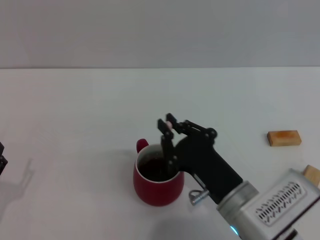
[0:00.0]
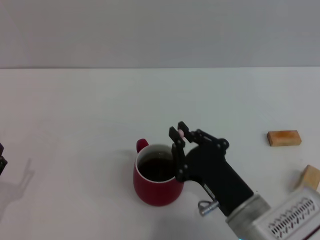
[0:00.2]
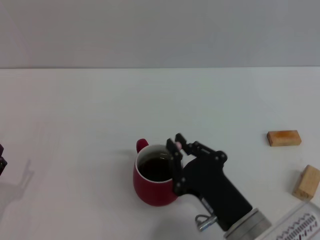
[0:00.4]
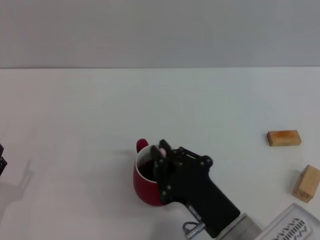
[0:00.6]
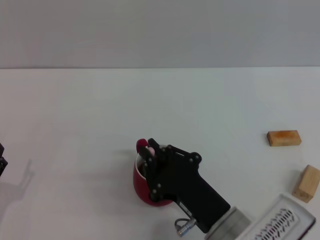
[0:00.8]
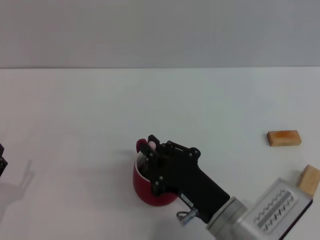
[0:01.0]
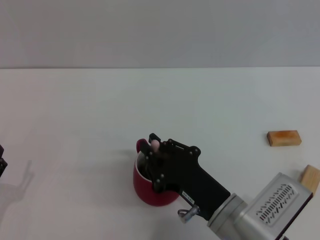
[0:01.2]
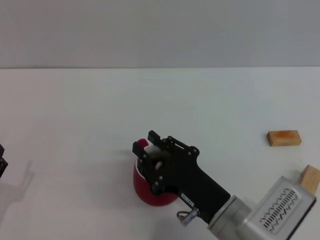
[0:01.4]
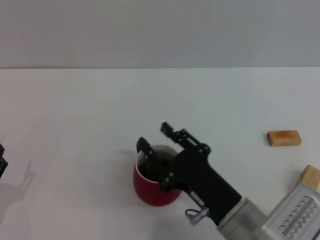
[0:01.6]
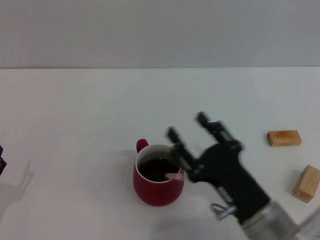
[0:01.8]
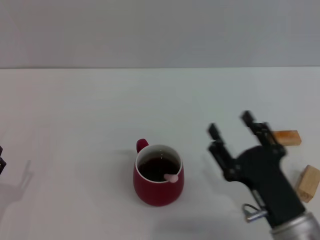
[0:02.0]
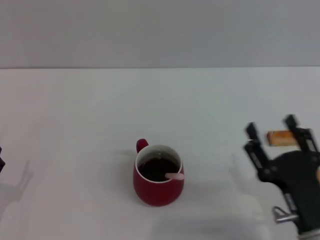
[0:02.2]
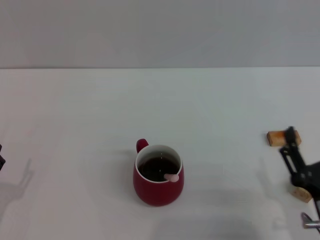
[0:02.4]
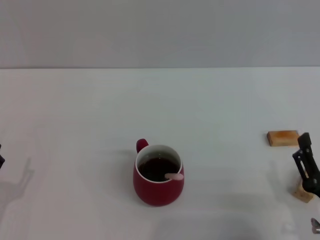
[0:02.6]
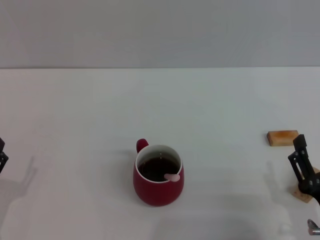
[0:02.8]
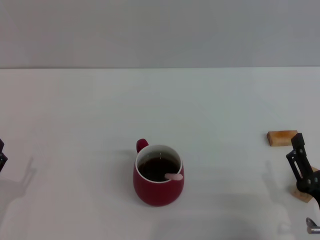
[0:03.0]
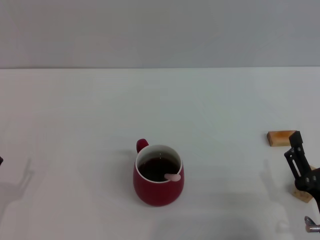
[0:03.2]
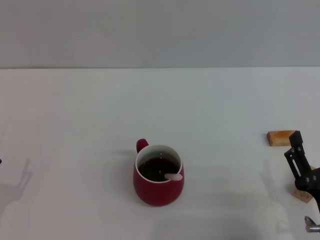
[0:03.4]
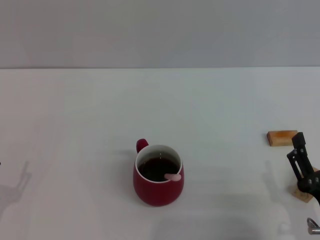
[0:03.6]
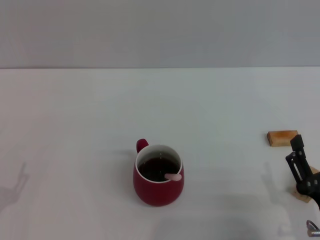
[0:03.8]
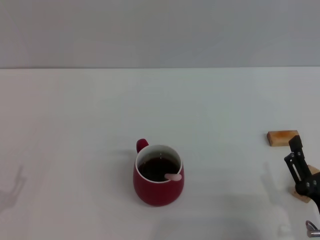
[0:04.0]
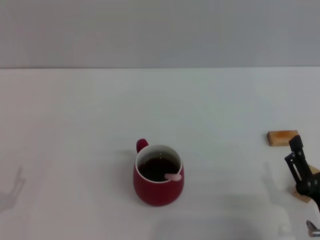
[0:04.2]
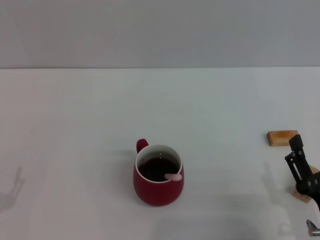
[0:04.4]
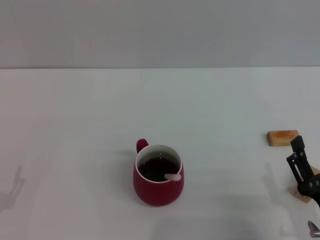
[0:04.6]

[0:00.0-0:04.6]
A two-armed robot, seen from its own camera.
Task of the whole recording: Move the red cup to the center, lift the pink spoon, stir it three times in the cup, and put the spoon into the cup.
0:00.0 to 0:01.6: The grippers move only a little.
0:01.6 to 0:03.0: The right gripper is displaced to the right and backward by roughly 10 cm, and opens.
0:03.0 to 0:04.6: The grippers move only a little.

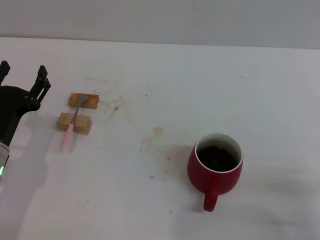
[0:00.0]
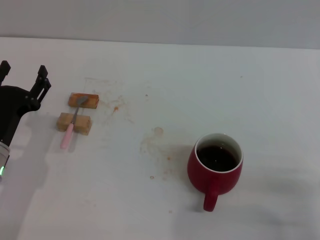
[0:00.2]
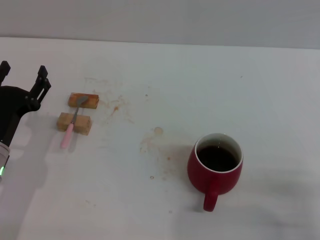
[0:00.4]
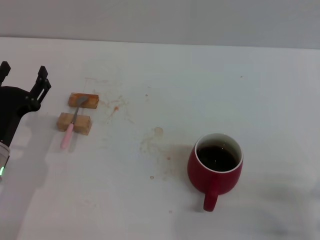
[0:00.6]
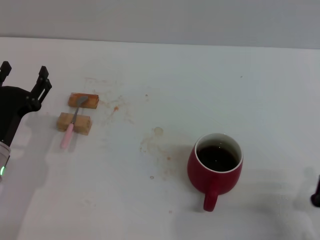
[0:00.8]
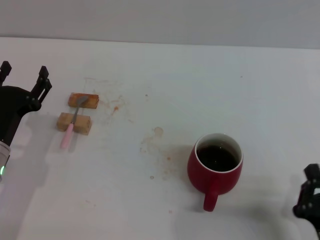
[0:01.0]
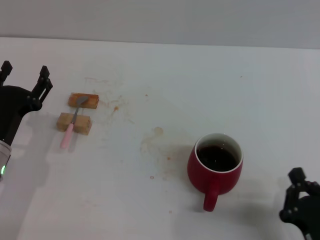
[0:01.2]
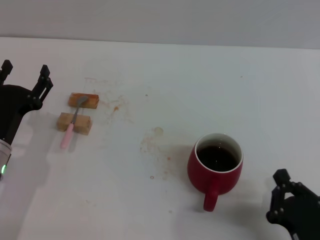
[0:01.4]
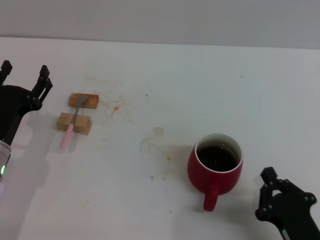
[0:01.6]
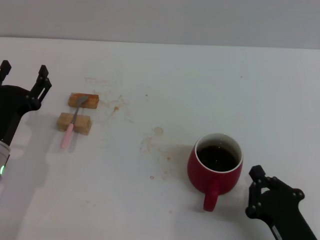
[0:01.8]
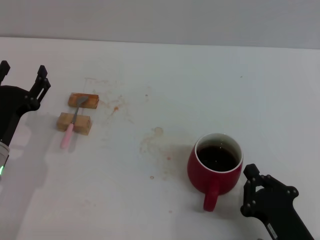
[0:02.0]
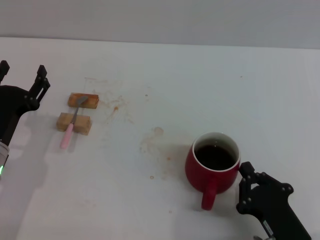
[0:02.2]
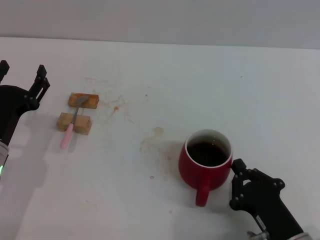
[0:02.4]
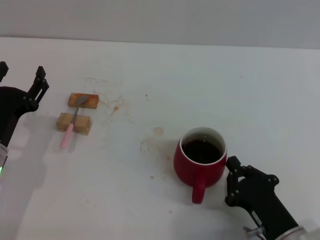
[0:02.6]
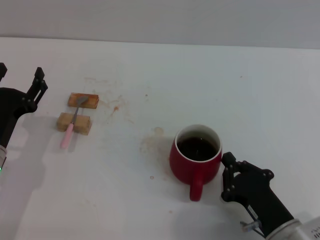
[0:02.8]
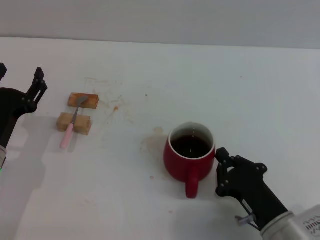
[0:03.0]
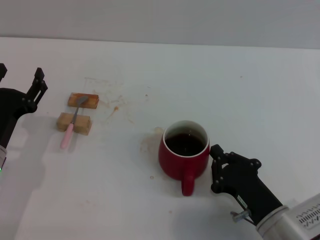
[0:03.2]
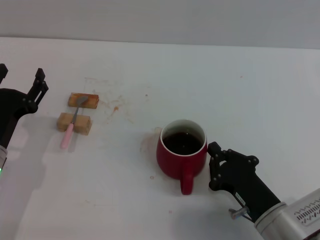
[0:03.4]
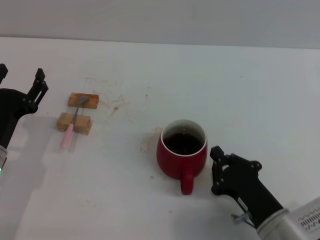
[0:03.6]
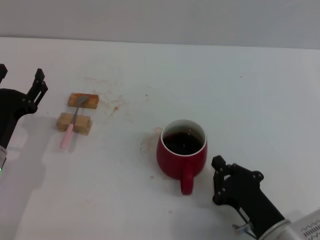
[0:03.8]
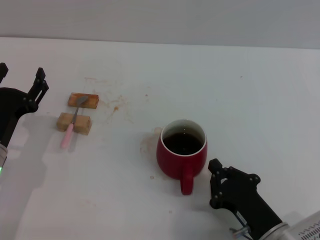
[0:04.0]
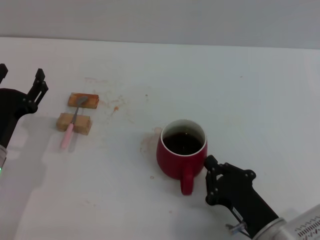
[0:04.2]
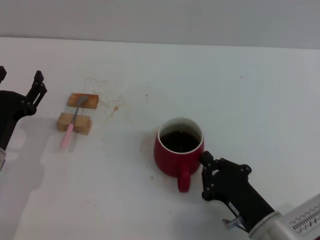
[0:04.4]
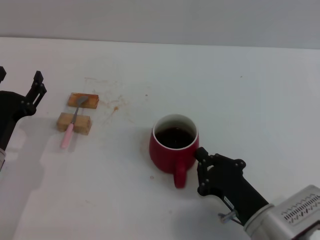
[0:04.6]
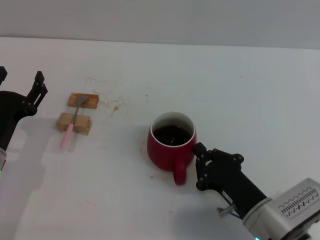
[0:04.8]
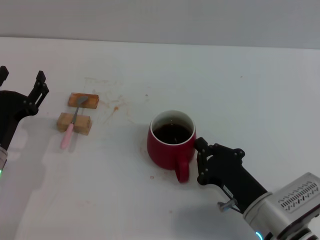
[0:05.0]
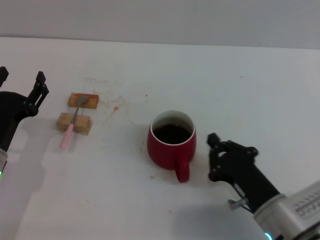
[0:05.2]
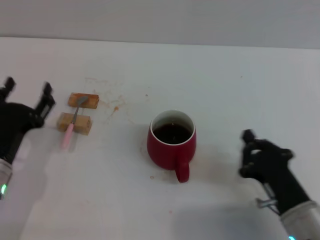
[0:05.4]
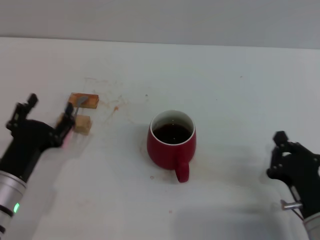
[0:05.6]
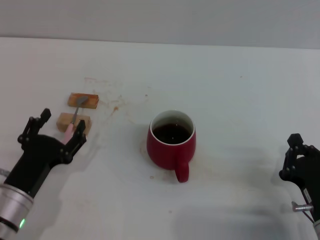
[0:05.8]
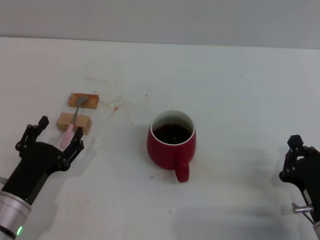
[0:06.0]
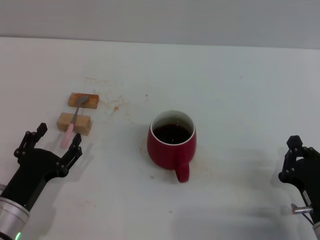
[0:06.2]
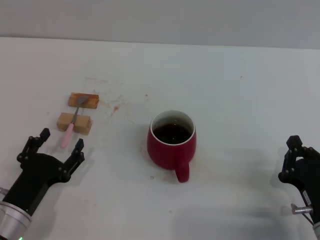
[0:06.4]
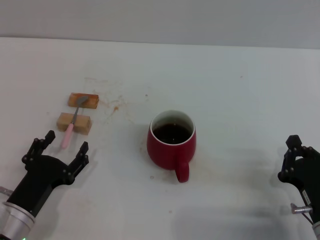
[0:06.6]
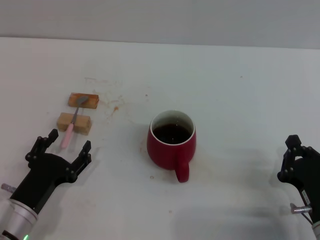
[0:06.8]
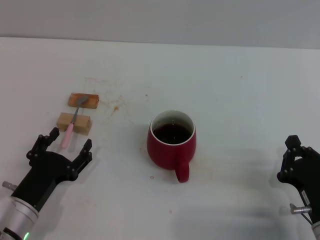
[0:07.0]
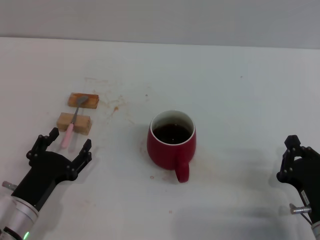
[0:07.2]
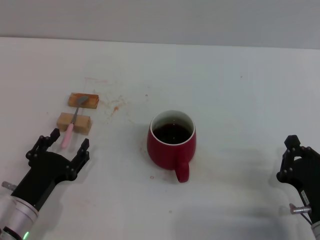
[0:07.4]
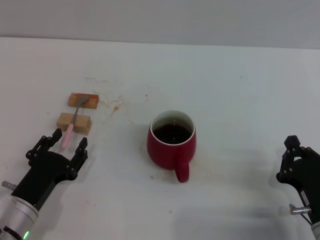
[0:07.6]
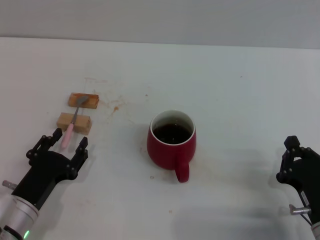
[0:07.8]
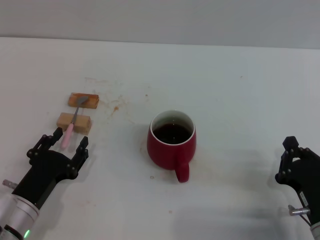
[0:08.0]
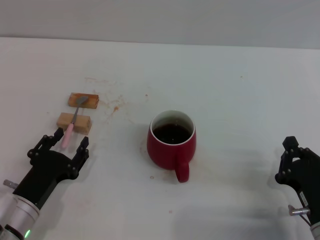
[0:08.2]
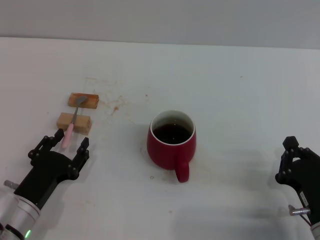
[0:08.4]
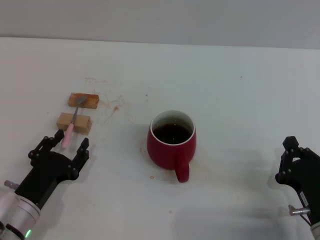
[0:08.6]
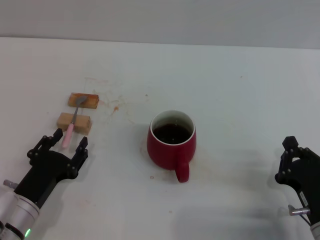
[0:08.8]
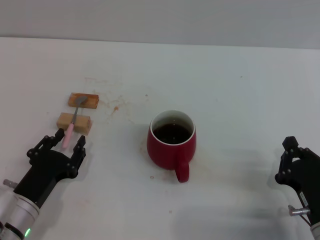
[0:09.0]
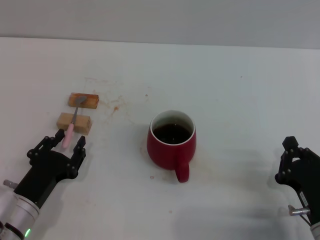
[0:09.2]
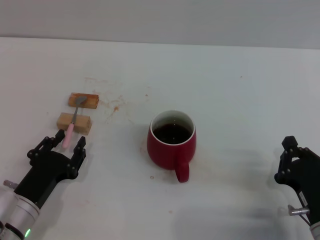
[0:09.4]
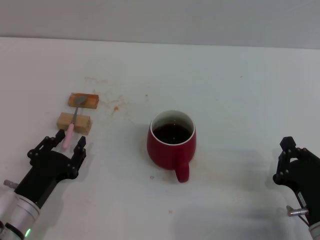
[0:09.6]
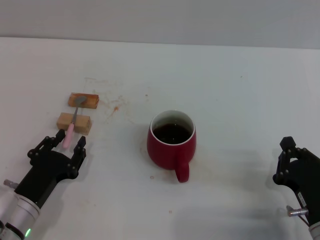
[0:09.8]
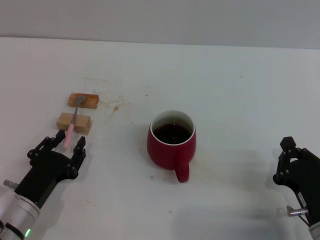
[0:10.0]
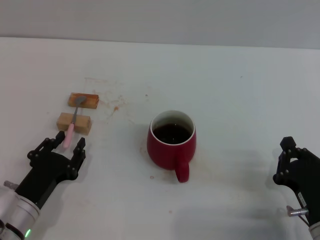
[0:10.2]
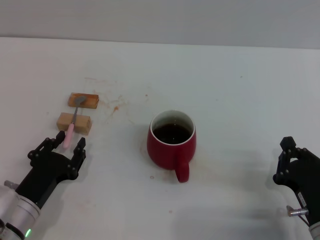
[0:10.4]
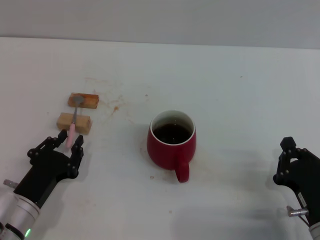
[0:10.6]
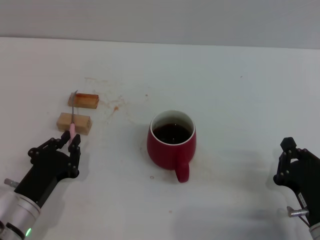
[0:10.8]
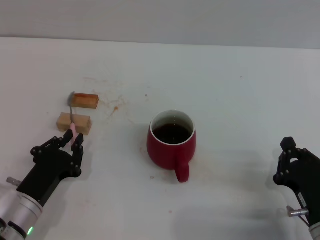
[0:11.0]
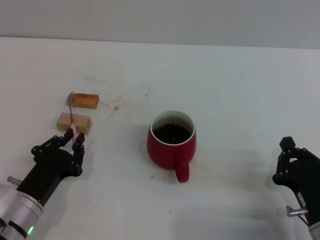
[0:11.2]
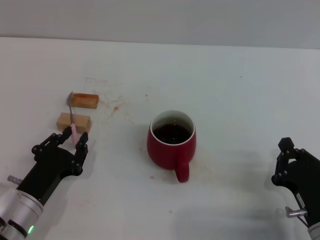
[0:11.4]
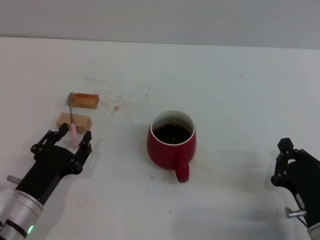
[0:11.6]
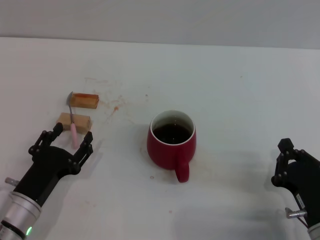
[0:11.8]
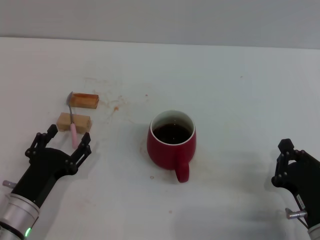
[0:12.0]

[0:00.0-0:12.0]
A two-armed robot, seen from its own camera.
Task of the whole recording: Move the red cup to the center, lift the pink spoon, stir it three times in the cup, and put the spoon into the cup.
Step, 0:00.0 to 0:06.0: Move the cup with coffee to the center of view with the right gripper.
0:00.0 to 0:01.6: The right gripper heads to the left, covering approximately 10 cm.
0:01.6 to 0:03.0: The right gripper travels forward by roughly 5 cm.
0:03.0 to 0:04.4: The grippers move only a little.
0:04.4 to 0:06.0: The left gripper shifts some 5 cm backward. The right gripper goes some 5 cm to the right.
0:06.0 to 0:07.6: The grippers make only small movements.
0:07.6 to 0:10.4: Neither gripper changes place.
0:10.4 to 0:12.0: The left gripper closes, then reopens.

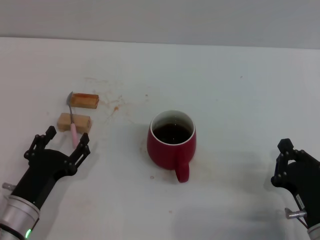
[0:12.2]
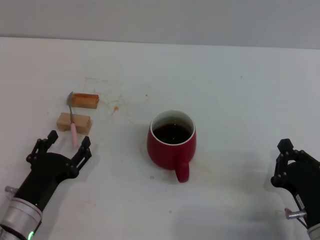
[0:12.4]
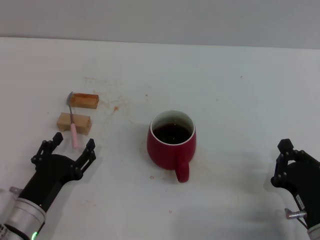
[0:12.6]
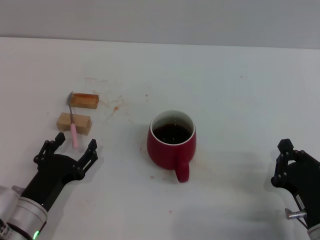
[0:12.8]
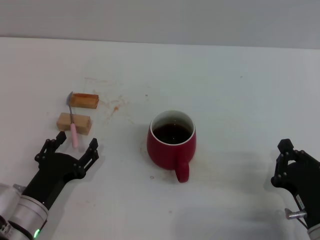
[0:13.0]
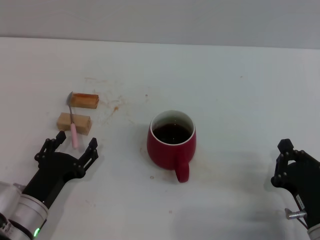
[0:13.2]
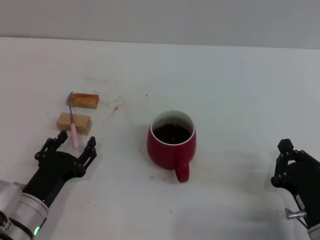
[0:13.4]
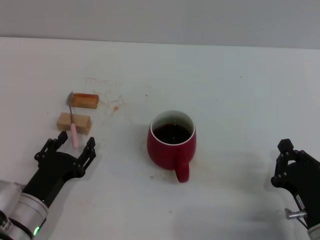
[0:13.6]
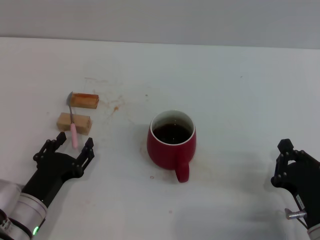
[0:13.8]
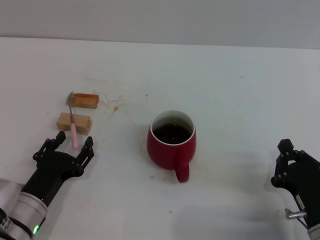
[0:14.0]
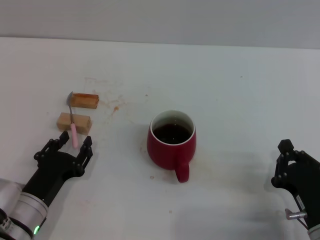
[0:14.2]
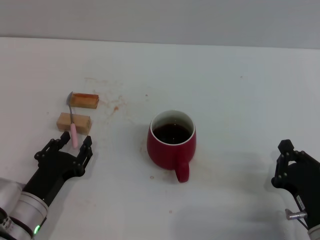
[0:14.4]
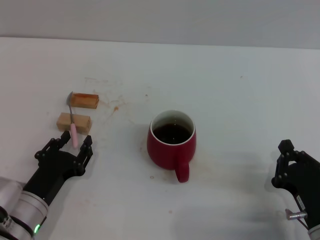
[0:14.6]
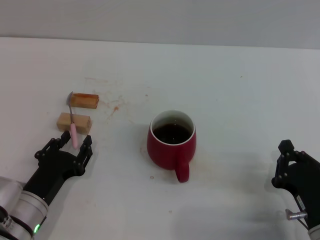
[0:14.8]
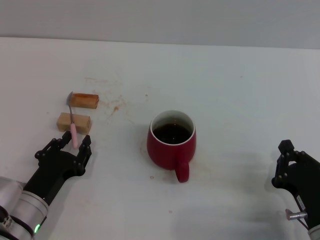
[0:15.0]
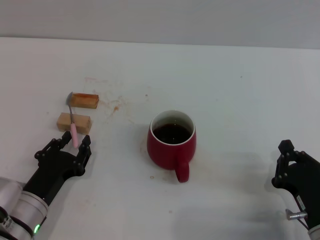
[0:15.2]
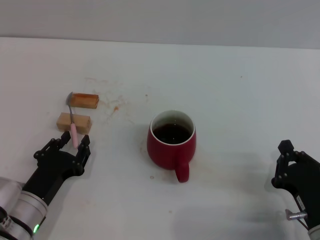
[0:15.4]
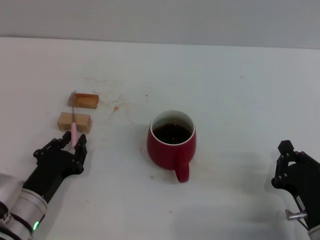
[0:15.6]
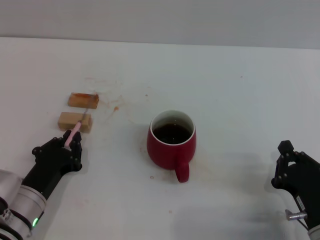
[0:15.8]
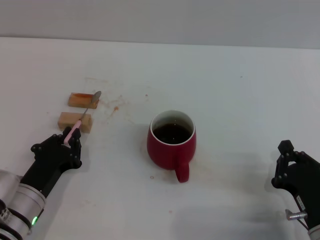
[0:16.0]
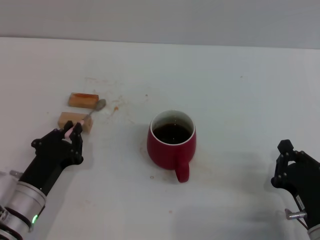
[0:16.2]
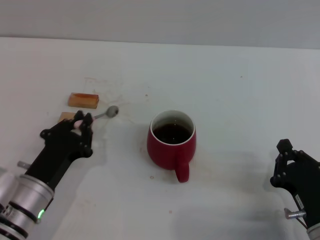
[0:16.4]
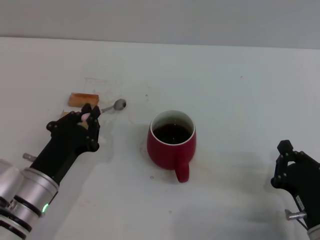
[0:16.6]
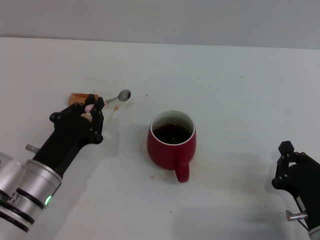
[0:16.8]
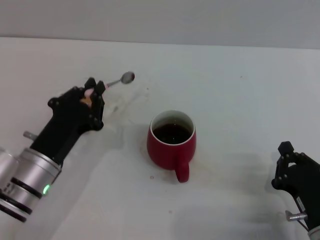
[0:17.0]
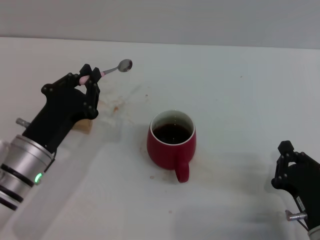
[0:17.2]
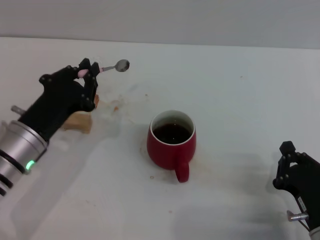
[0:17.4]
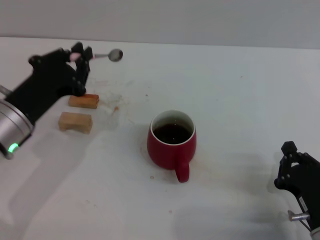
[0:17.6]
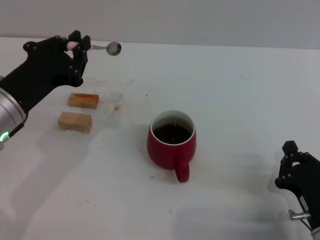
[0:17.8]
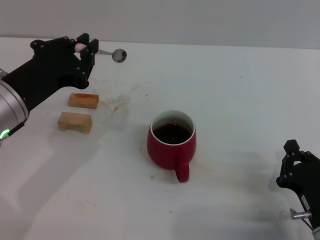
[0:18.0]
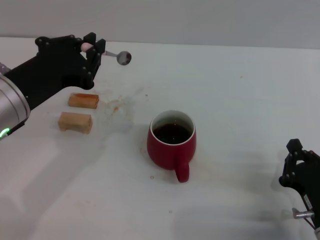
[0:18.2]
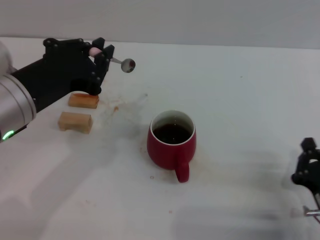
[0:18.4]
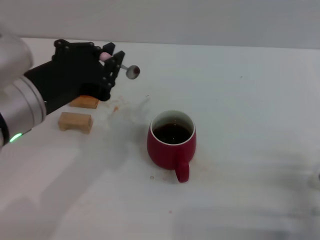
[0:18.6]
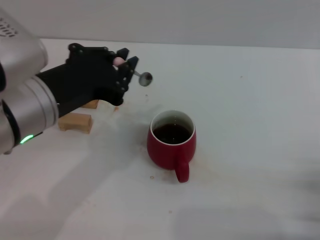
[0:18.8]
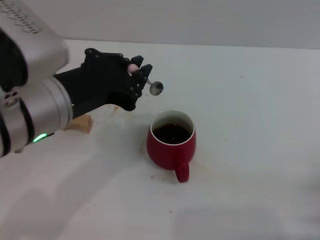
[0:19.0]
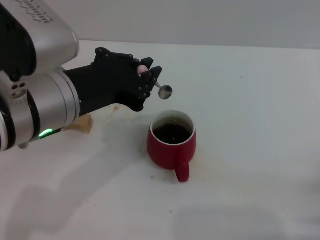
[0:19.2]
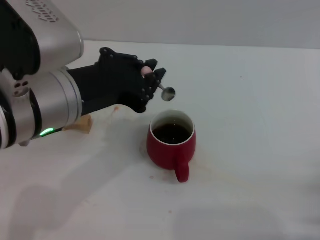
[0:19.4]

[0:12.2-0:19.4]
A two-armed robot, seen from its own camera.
Task of the whole recording: Move the red cup to the center, lift the pink spoon, stir it three times in the cup, and put the spoon into the cup.
Step, 0:12.2 to 0:17.0: Pick up the spoon with the left gripper.
0:12.2 to 0:13.6: Both grippers stay about where they are.
0:13.6 to 0:15.0: The left gripper closes.
0:15.0 to 0:16.6: The left gripper closes up.
0:16.6 to 0:18.0: The left gripper is displaced upward by approximately 15 cm.
0:18.0 to 0:19.4: The left gripper heads to the right and upward, covering about 10 cm; the right gripper shifts about 5 cm to the right.
